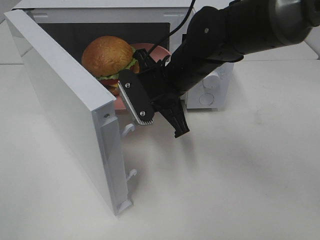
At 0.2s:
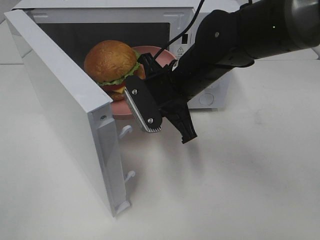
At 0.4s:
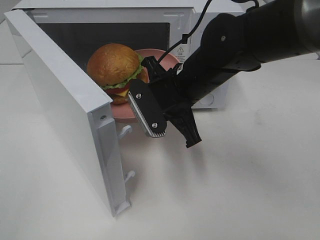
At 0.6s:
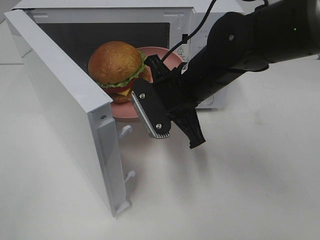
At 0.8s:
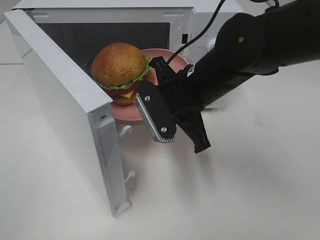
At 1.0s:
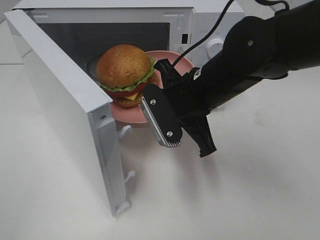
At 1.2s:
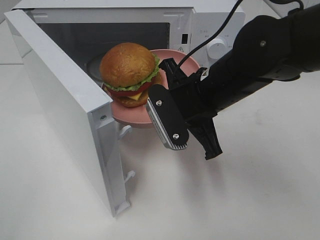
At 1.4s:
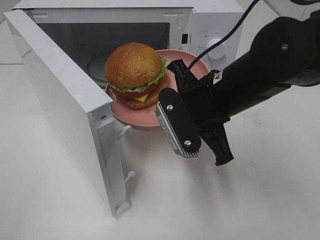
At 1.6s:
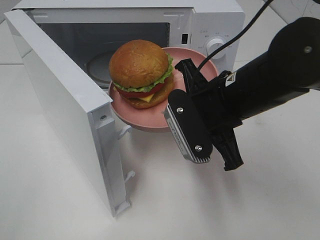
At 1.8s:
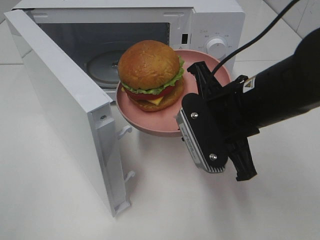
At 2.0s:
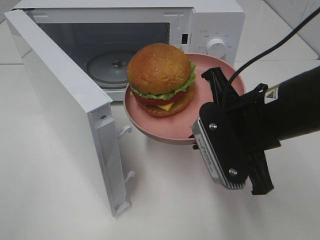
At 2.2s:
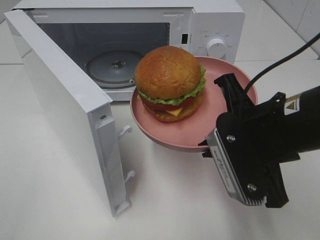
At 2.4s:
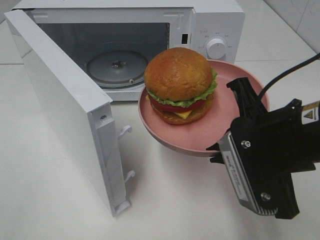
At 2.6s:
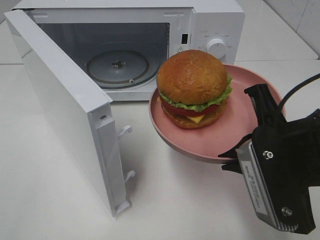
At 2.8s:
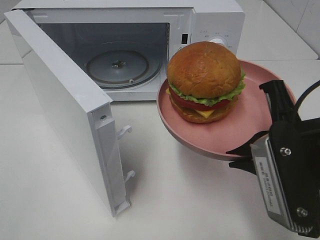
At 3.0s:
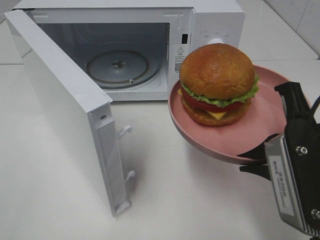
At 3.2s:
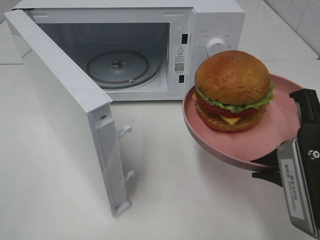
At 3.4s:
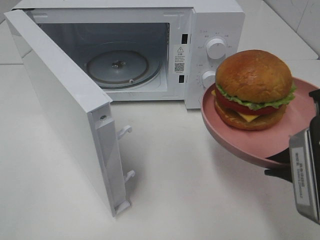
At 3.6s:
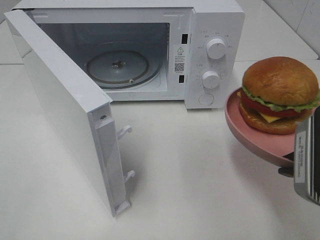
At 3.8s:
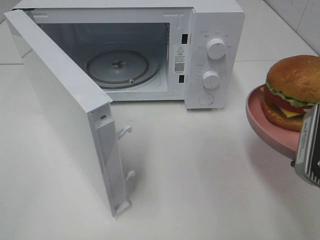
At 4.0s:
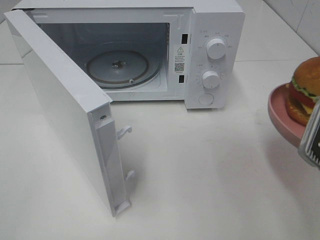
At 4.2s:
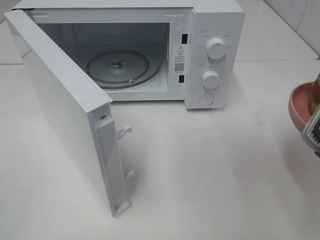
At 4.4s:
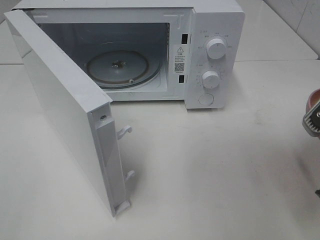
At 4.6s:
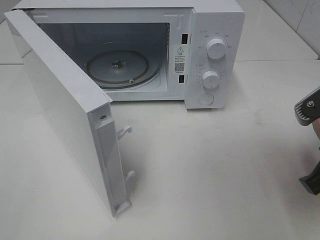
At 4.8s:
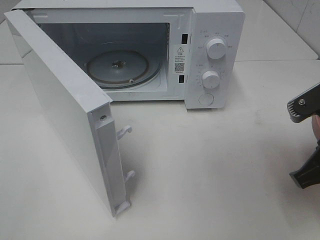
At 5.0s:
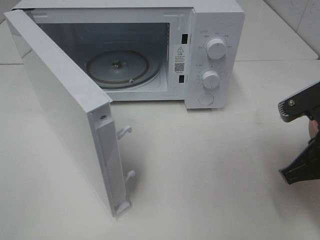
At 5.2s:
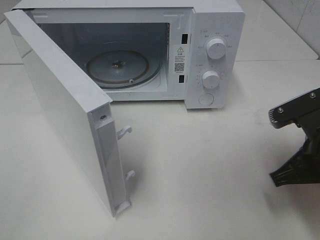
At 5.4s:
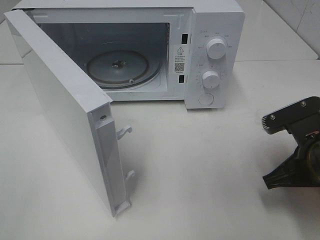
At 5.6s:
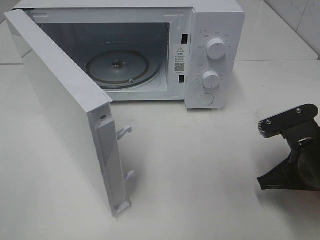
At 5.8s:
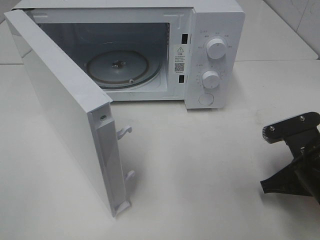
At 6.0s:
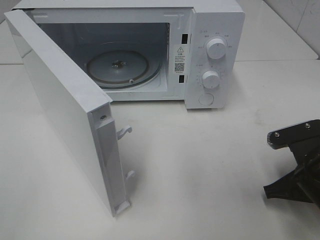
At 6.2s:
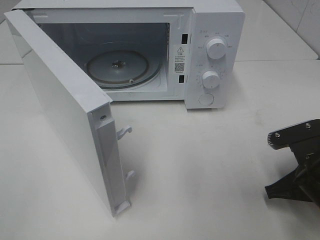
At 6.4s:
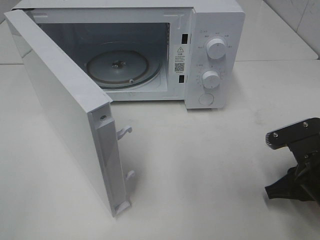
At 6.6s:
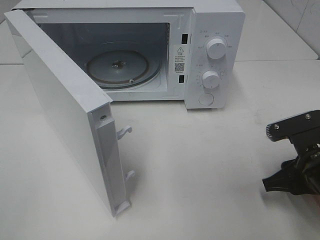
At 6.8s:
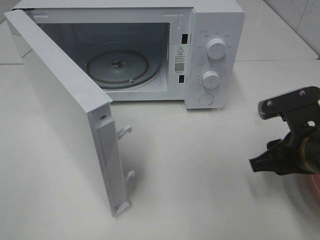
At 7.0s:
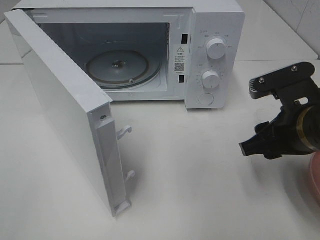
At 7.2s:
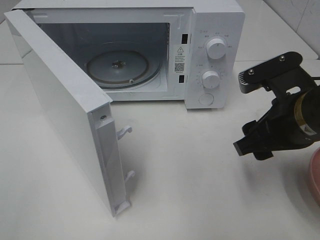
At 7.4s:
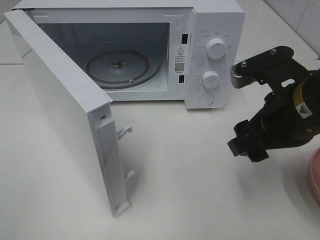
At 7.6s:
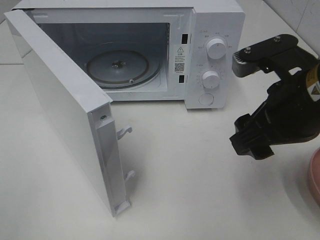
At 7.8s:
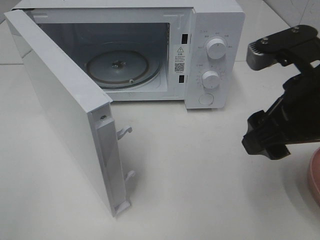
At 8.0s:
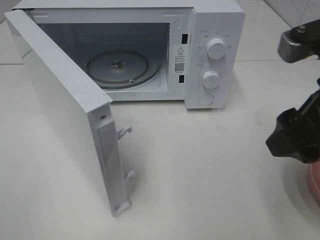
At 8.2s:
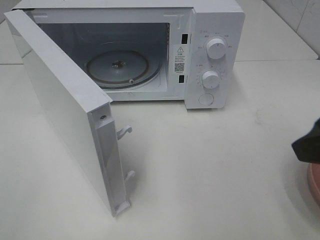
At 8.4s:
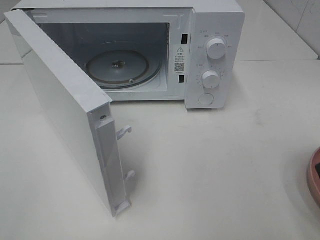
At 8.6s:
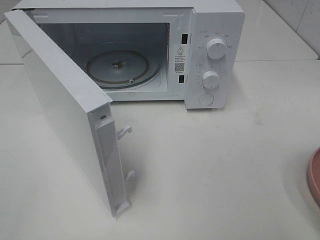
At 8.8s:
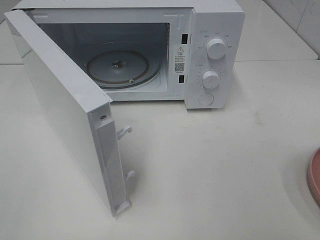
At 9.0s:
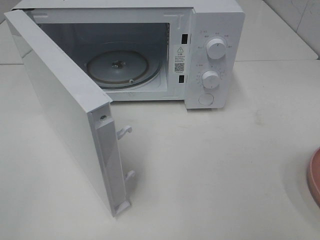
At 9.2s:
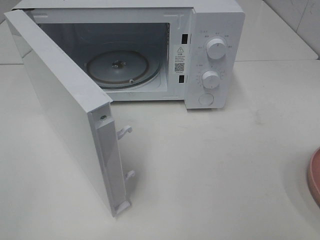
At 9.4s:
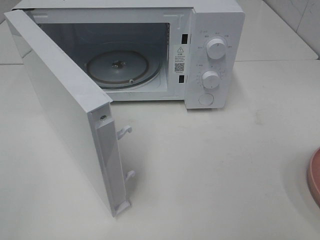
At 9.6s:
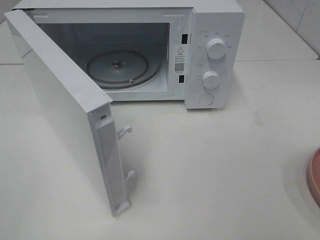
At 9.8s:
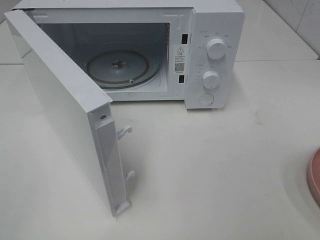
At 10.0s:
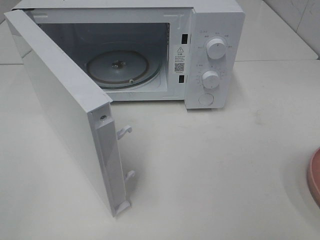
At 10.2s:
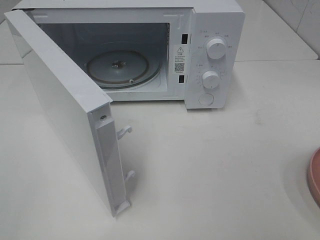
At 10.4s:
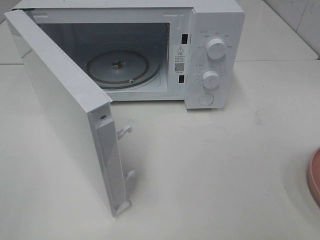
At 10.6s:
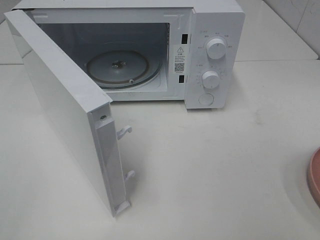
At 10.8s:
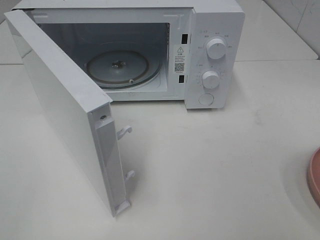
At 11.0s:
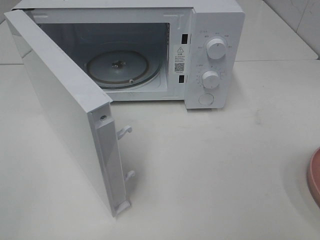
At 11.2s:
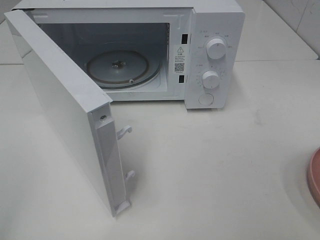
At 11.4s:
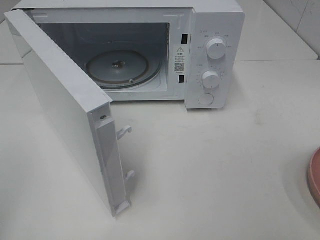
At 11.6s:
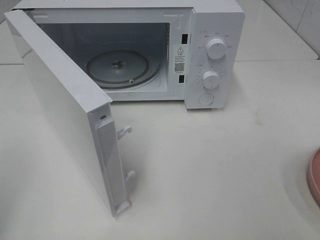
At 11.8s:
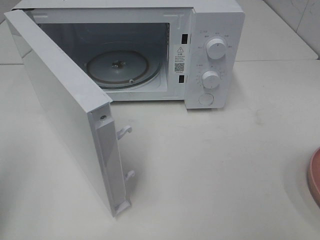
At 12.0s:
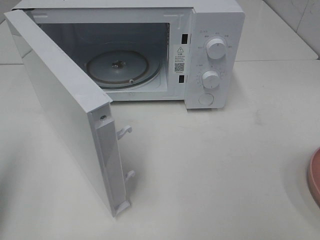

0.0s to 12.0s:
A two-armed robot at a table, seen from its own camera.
Task of the whole recording: Heat the burger.
Step, 0.0s to 6.4s: Right hand: place the plate on the table.
0.0s to 1.6s: The right gripper heads backward and to the right, covering about 10 cm.
1.6s to 3.0s: The right gripper heads backward and to the right, covering about 15 cm.
3.0s to 4.4s: The right gripper moves to the right, about 5 cm.
4.4s to 6.0s: The right gripper is displaced downward by about 15 cm.
6.0s to 7.6s: The right gripper travels upward by roughly 15 cm, and opens up.
7.6s to 9.0s: The right gripper moves backward and to the right, roughly 20 cm.
10.4s to 12.0s: The left gripper shifts roughly 15 cm forward, and closes.

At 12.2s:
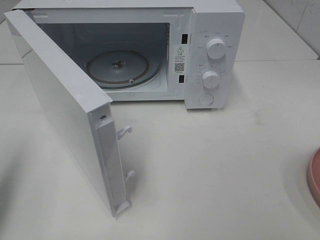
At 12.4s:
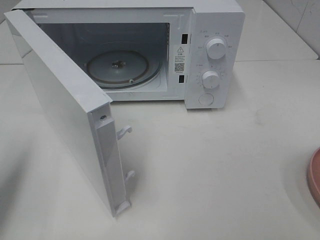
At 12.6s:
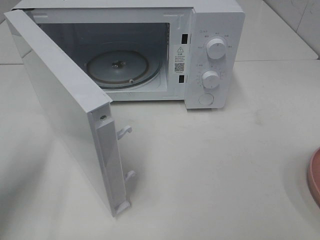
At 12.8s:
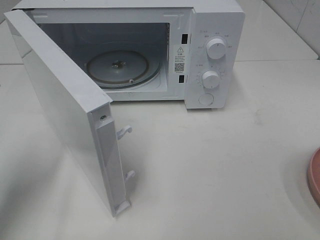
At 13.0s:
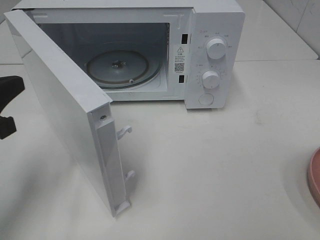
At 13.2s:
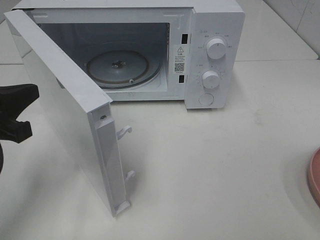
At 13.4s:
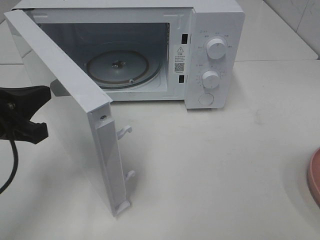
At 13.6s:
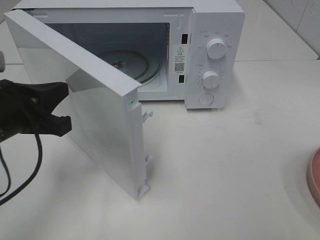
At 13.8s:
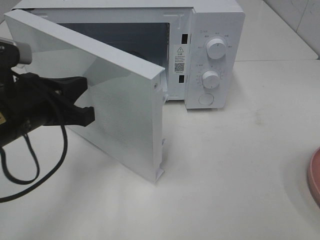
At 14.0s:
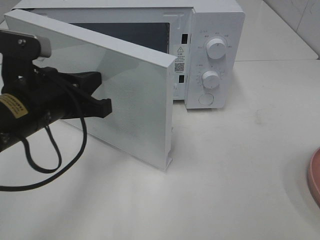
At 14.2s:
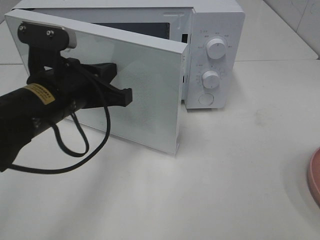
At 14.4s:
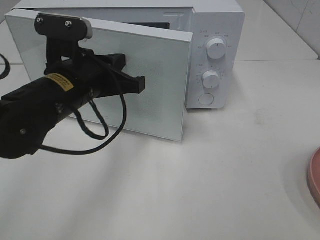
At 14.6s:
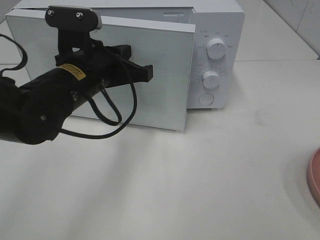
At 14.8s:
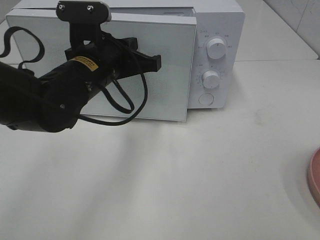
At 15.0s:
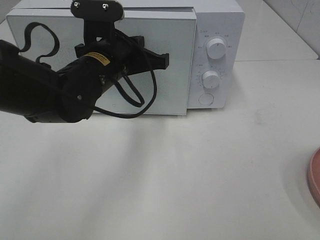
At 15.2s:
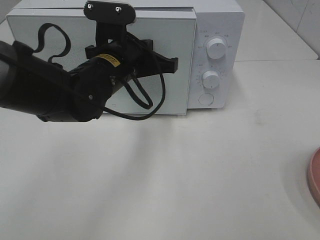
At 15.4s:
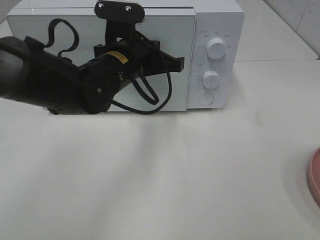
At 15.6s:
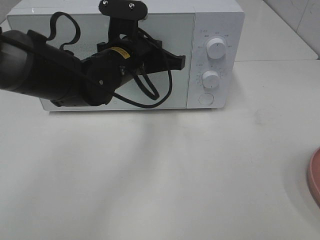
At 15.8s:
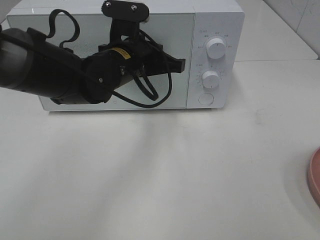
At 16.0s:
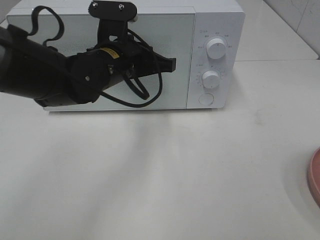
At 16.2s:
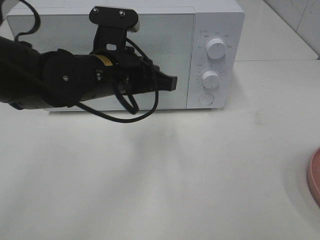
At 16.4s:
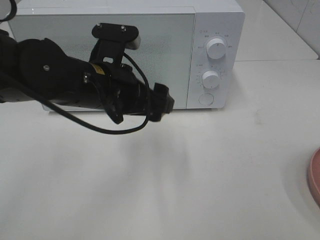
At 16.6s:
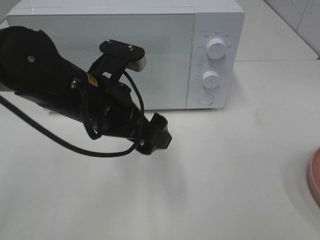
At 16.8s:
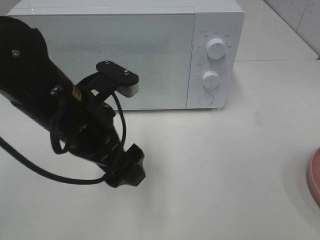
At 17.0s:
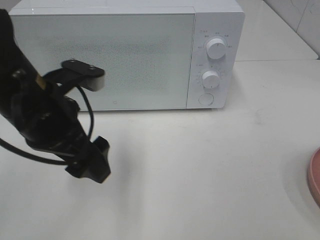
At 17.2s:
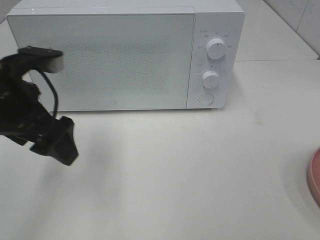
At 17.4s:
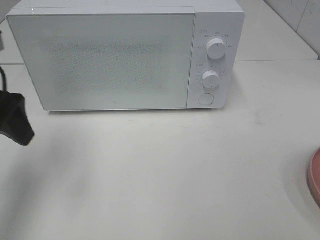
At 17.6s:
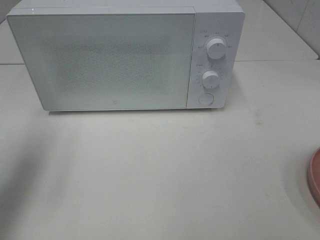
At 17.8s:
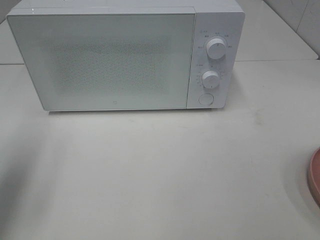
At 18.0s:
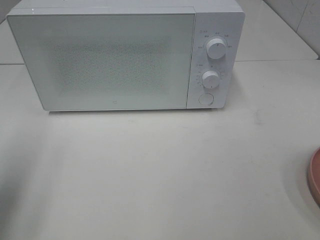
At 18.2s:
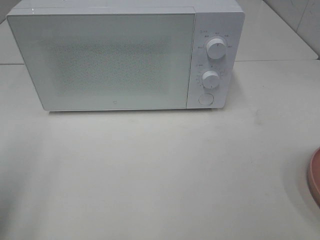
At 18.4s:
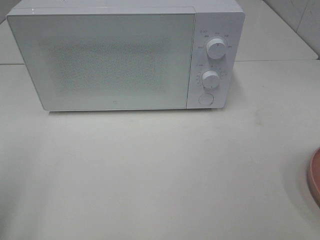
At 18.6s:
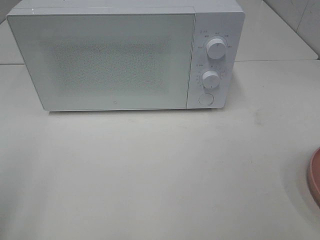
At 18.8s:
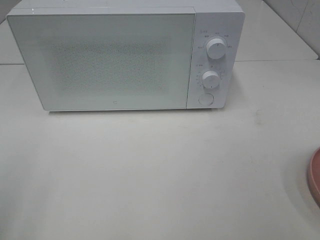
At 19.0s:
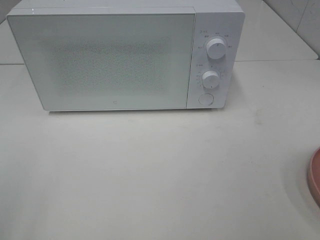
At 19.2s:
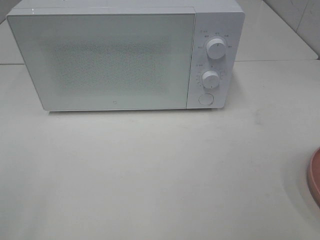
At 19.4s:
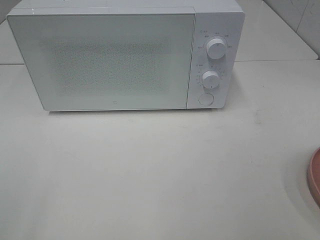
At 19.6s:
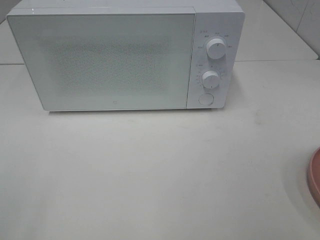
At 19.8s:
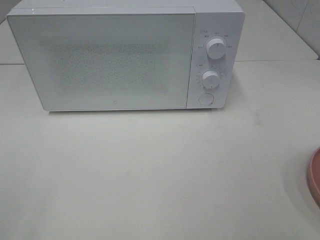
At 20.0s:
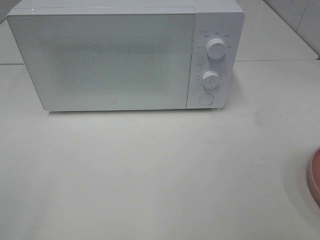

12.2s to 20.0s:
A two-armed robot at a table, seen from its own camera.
Task of the whole recording: Heat the burger.
Step, 12.2s to 16.0s: Left hand: close the microwave door.
12.2s to 13.8s: The left gripper goes roughly 15 cm to the right and forward.
13.8s to 15.4s: The left gripper shifts some 15 cm to the right and forward.
15.4s to 16.8s: The left gripper heads backward and to the left, covering some 10 cm, and opens its fingers.
16.8s to 18.4s: The left gripper travels to the left and backward by roughly 25 cm.
